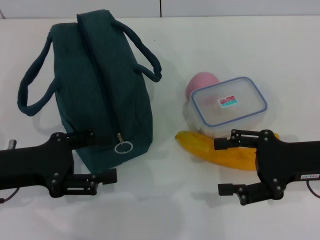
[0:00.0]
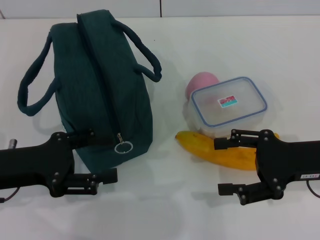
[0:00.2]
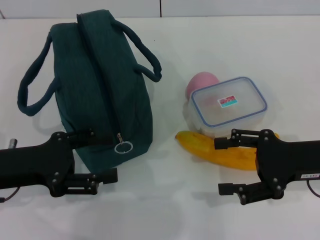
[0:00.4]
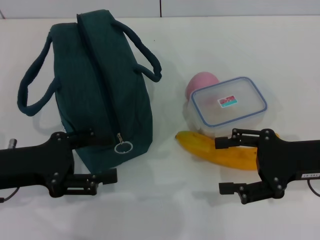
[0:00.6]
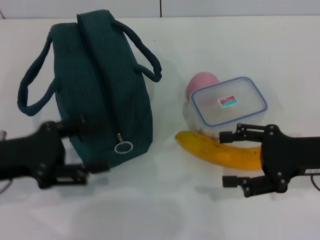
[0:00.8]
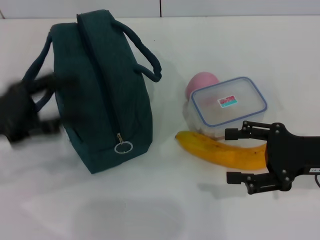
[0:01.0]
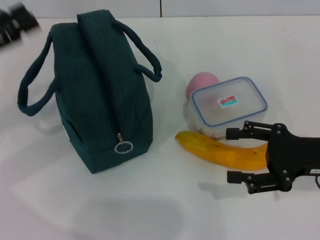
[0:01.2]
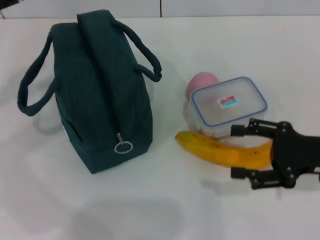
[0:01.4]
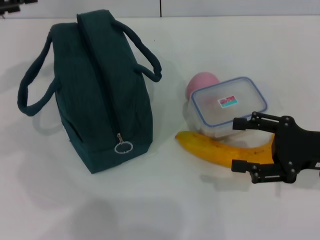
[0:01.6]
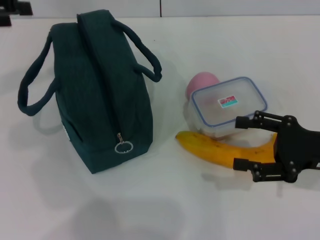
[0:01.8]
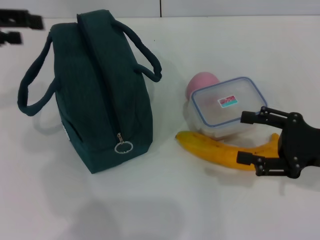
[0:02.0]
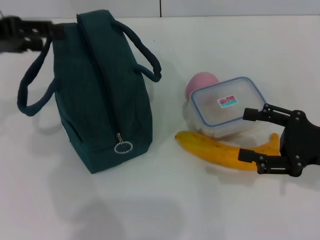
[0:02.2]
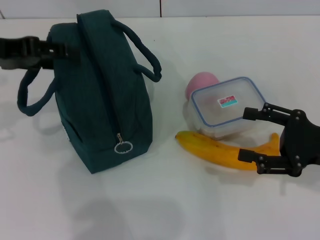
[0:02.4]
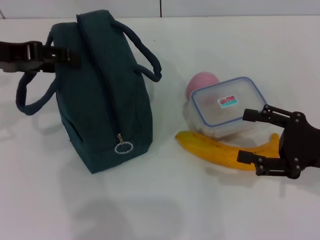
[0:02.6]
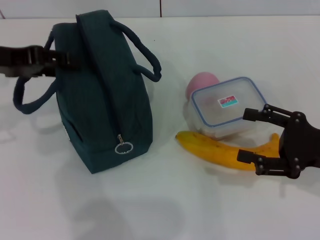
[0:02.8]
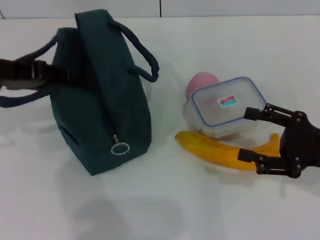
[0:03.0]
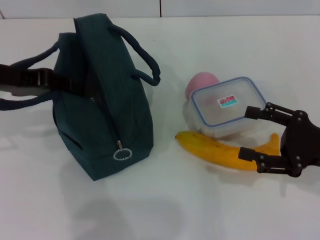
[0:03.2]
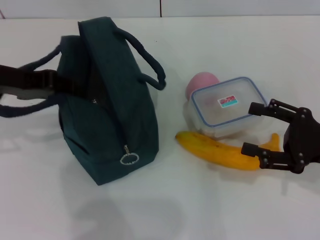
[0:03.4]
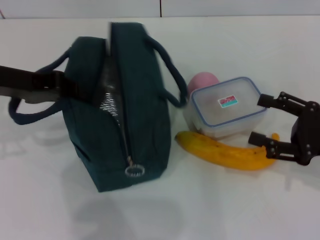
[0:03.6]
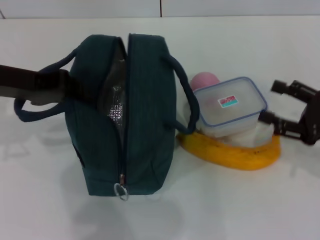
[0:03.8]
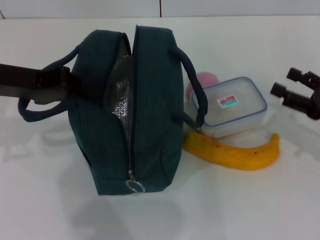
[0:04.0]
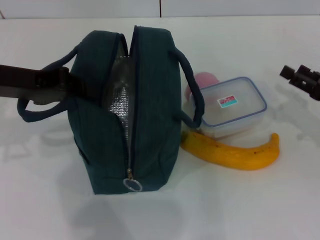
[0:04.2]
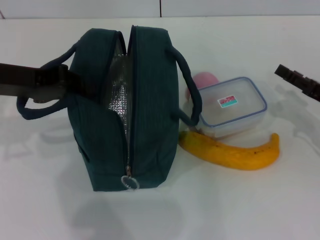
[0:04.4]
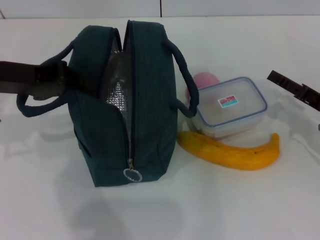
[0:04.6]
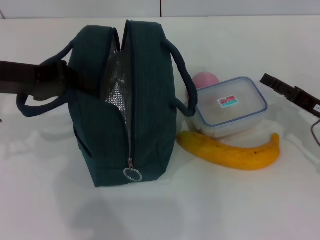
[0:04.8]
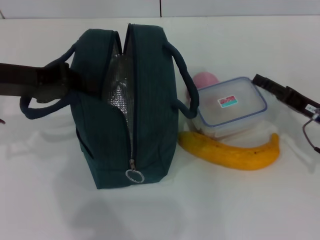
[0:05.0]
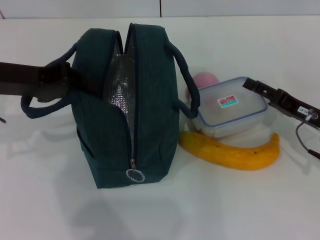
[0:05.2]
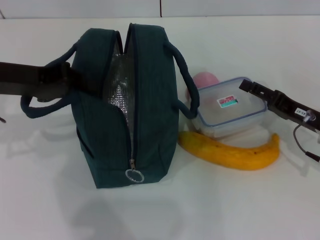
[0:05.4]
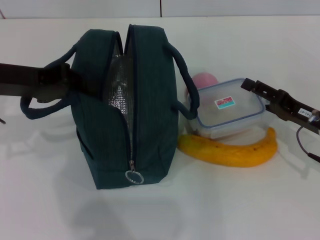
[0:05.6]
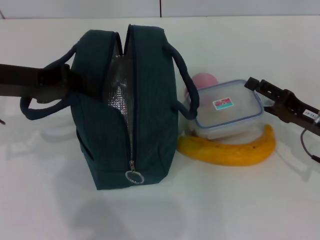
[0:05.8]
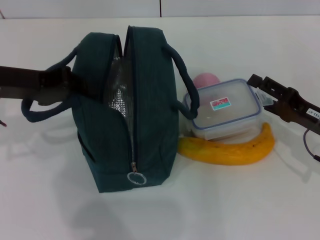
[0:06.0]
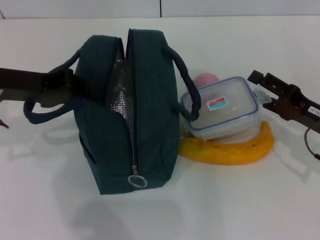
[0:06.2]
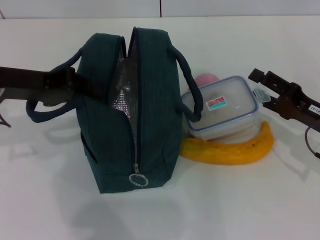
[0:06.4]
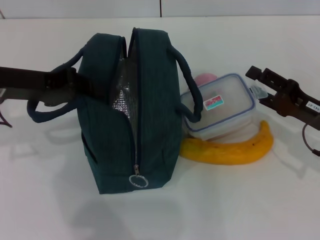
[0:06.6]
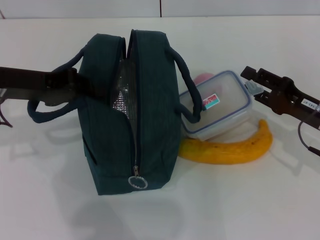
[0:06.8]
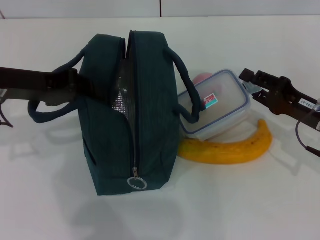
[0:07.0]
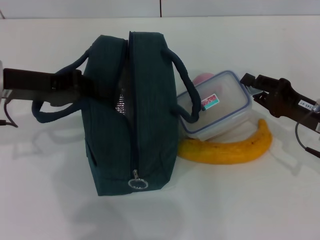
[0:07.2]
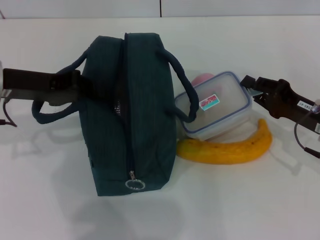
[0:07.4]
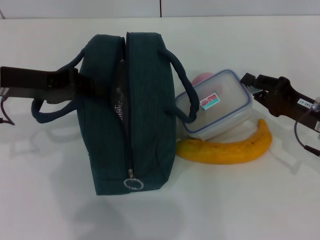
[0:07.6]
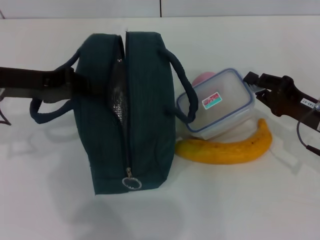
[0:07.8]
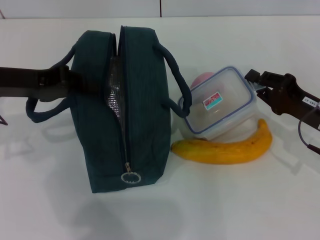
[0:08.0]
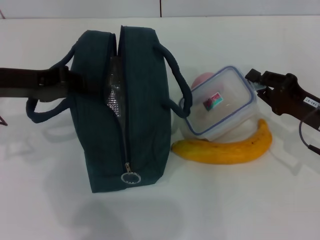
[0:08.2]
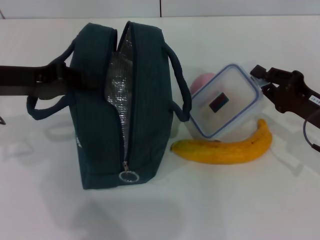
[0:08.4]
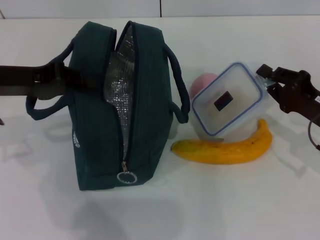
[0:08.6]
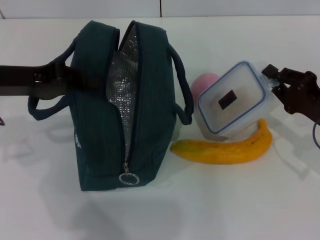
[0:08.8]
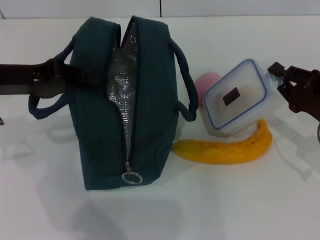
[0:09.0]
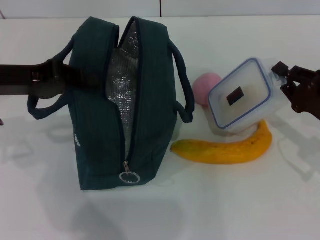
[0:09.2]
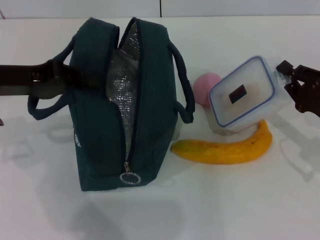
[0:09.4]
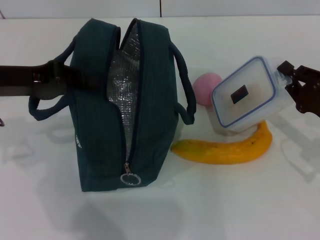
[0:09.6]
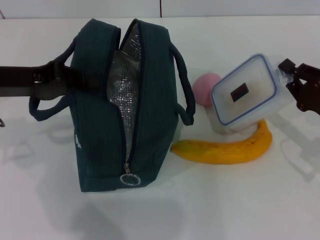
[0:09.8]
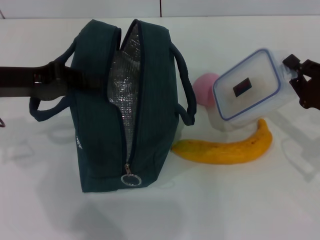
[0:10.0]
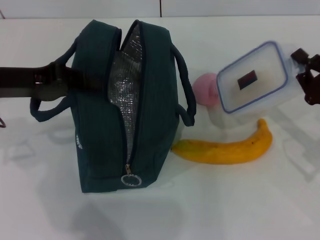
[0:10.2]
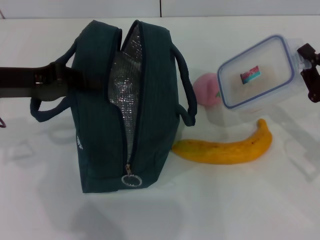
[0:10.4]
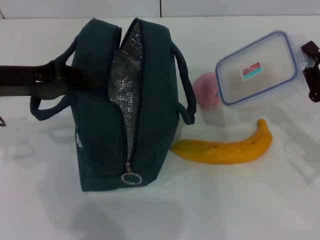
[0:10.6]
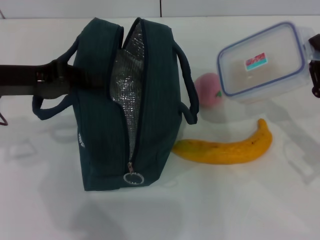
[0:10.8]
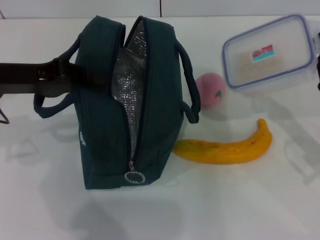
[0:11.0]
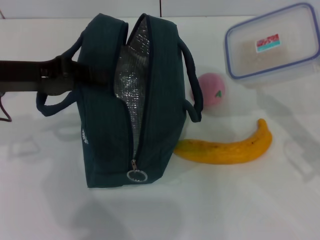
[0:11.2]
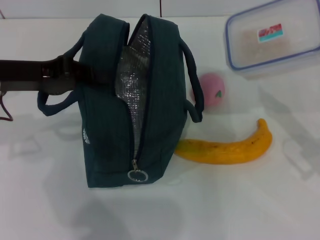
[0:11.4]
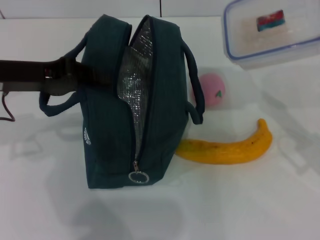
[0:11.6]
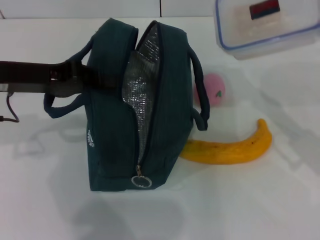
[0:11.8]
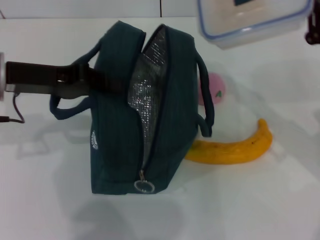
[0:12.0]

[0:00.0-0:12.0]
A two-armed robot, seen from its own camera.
Step, 0:00.0 to 0:03.6: Hold the lunch bag with your left hand.
Step, 0:03.8 to 0:08.6: Pick up the lunch box with your right hand.
0:00.0 to 0:01.6: The left gripper heads forward, upward and to the left, covering some 20 cm.
0:01.6 to 0:03.0: The left gripper travels to the right by approximately 5 cm.
0:03.0 to 0:04.4: The right gripper is displaced forward by approximately 5 cm; the left gripper closes up.
0:06.0 to 0:07.6: The right gripper closes its fingers.
0:07.6 to 0:09.0: The grippers make only small movements.
0:09.0 to 0:10.4: The grippers move only a little.
0:10.4 to 0:12.0: The right gripper travels upward by roughly 5 cm.

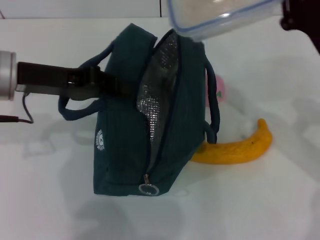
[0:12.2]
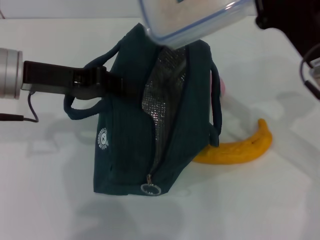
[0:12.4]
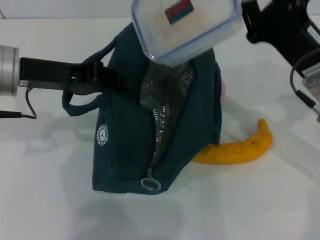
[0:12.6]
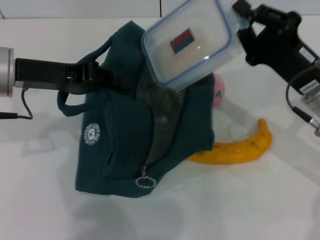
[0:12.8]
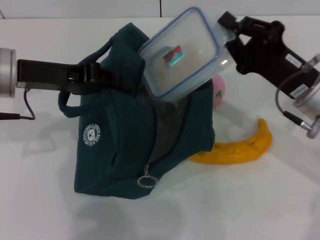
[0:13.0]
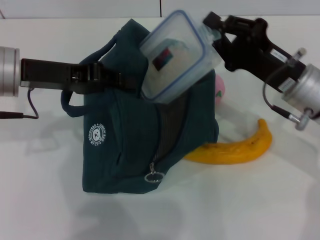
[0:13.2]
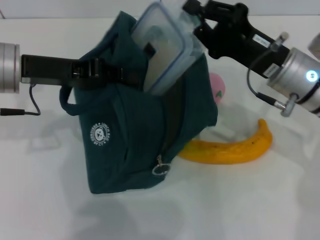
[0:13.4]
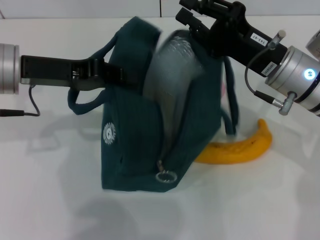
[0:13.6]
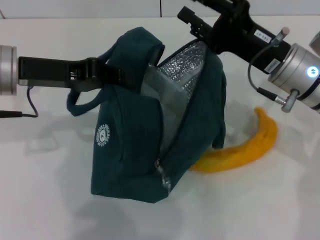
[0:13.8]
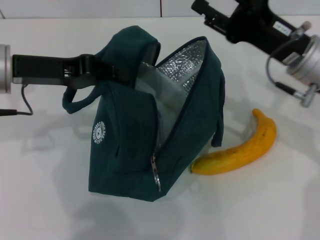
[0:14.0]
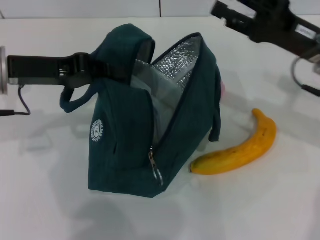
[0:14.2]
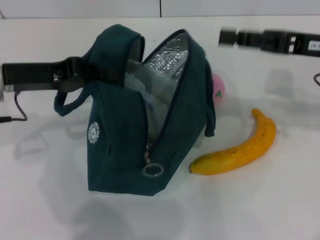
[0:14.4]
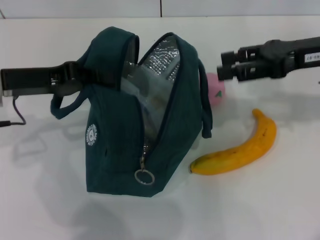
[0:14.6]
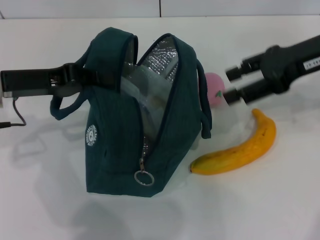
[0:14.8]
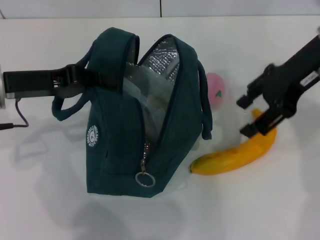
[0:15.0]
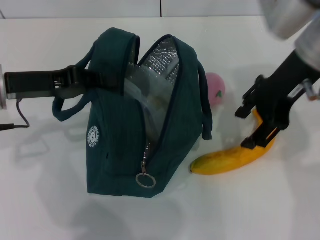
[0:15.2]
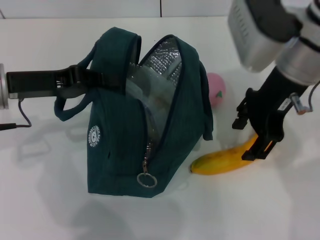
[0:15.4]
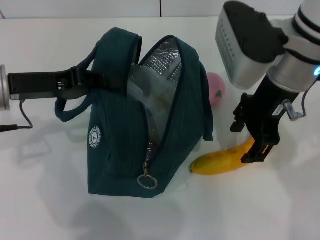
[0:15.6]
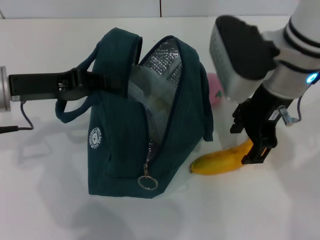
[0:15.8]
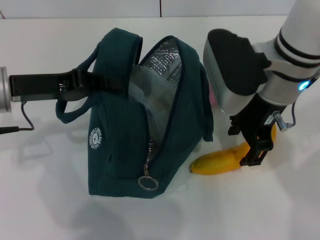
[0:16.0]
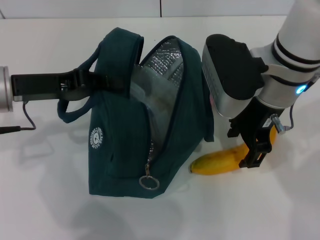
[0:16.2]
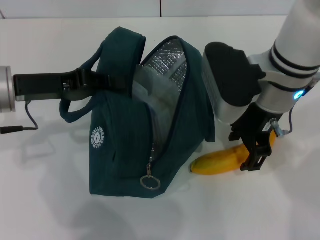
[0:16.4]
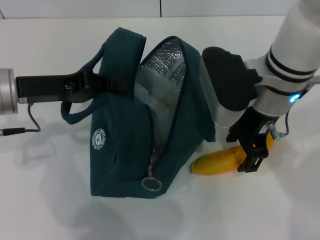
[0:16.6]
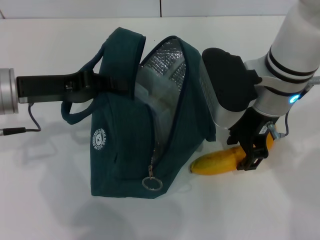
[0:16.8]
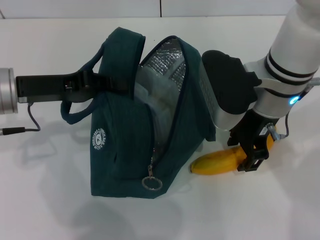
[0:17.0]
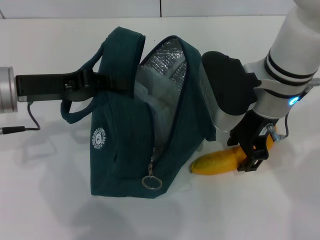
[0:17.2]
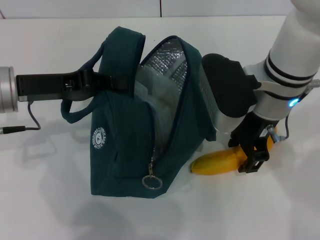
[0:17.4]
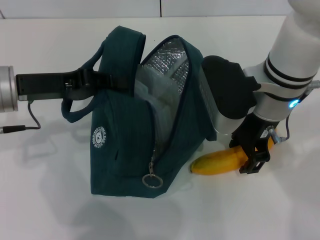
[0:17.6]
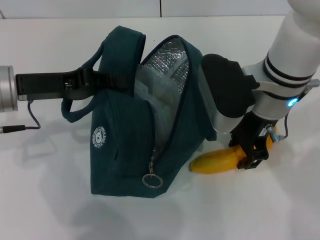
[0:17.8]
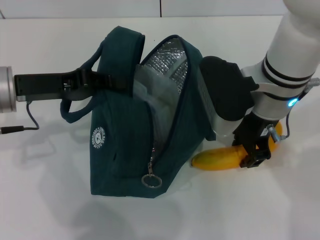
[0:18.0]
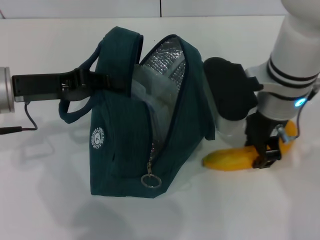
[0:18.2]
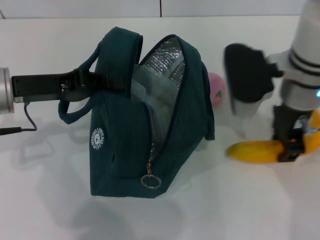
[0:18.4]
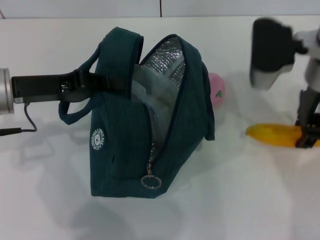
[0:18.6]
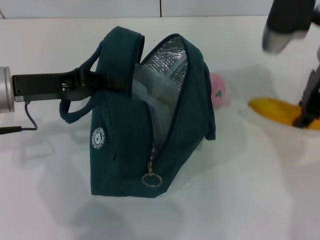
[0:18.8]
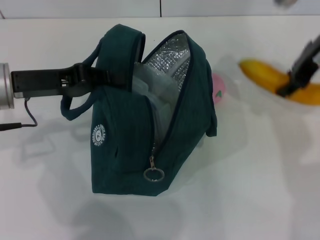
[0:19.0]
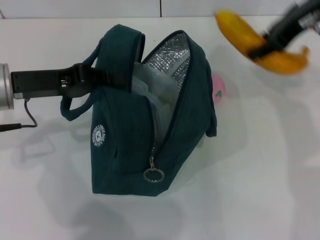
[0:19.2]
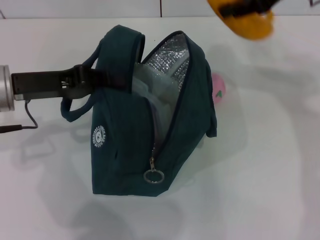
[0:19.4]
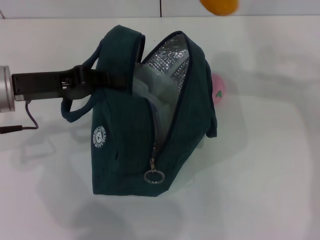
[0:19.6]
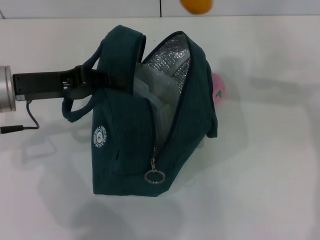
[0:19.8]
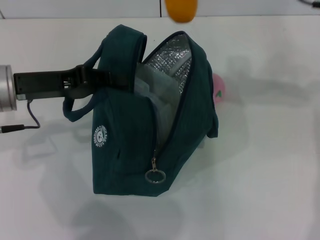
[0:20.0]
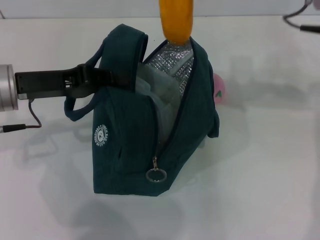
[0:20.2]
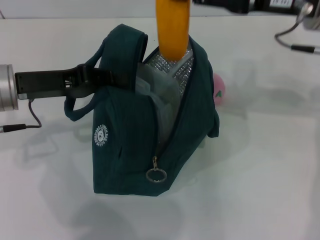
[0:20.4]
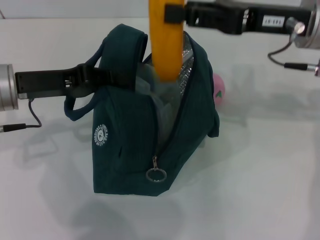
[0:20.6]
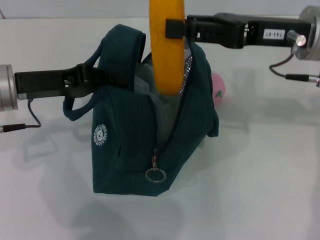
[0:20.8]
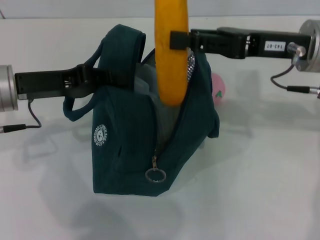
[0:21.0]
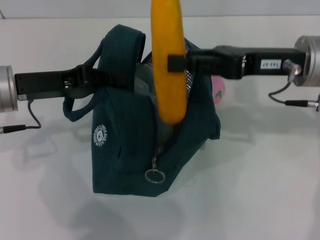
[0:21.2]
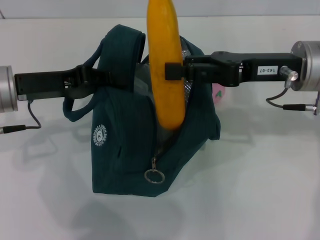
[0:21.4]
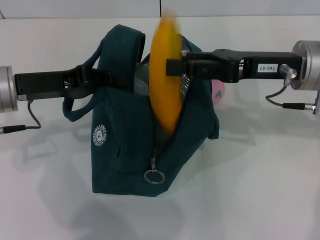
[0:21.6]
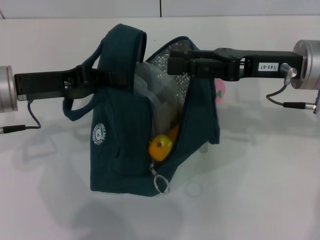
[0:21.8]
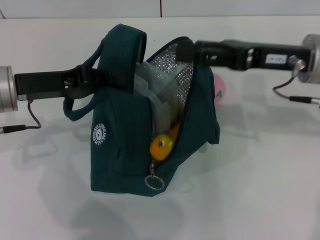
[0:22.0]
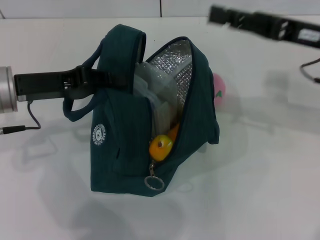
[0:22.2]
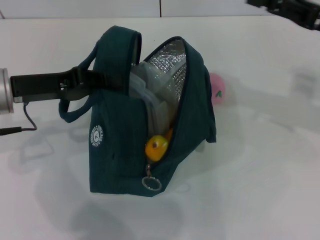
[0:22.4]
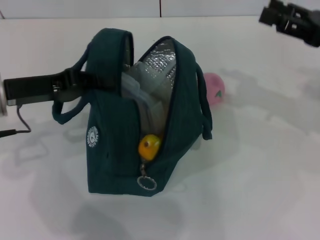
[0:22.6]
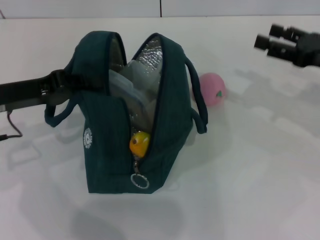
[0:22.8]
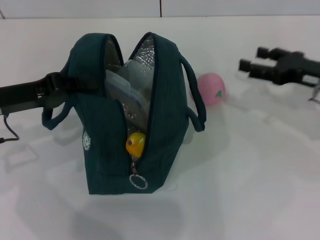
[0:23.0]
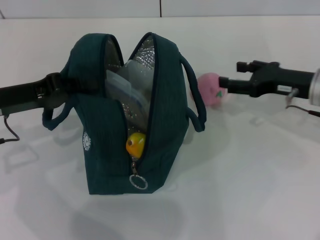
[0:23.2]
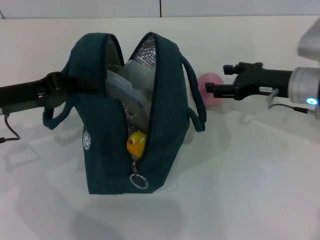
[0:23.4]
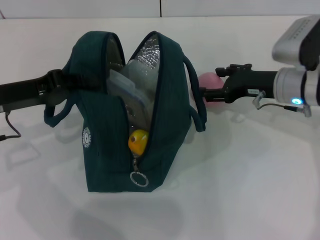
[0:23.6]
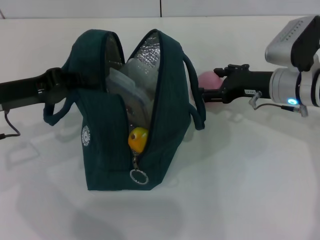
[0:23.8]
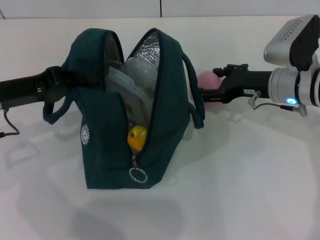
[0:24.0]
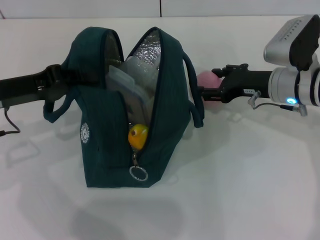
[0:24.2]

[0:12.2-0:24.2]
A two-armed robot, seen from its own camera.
Step, 0:12.2 to 0:14.2: Place the lunch box into the lunch bag with your right hand.
Step, 0:14.4 to 0:18.0: Take the banana with your right hand.
Step, 0:18.2 to 0:22.0: Put the banana into the lunch bag with your right hand.
0:12.2 to 0:13.8: The right gripper goes about 5 cm to the left.
0:13.8 to 0:15.2: The right gripper heads upward, covering roughly 10 cm, and opens up.
0:15.2 to 0:16.6: The right gripper is displaced downward and to the left by roughly 10 cm.
0:16.6 to 0:18.2: The grippers stay close to where they were, moving slightly.
0:18.2 to 0:19.8: The right gripper goes some 15 cm upward and to the right.
0:19.8 to 0:21.2: The right gripper moves downward, roughly 15 cm.
0:21.2 to 0:22.6: The right gripper travels to the right by approximately 10 cm.
0:22.6 to 0:24.2: The right gripper is displaced to the left and downward by approximately 15 cm.
